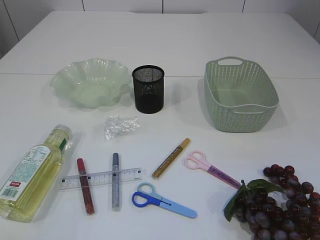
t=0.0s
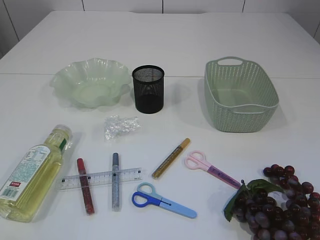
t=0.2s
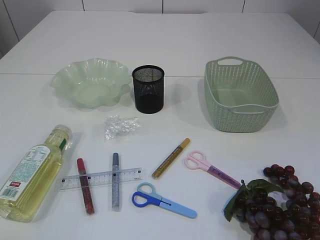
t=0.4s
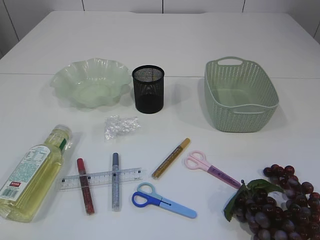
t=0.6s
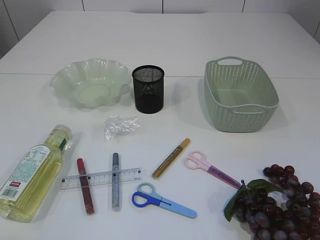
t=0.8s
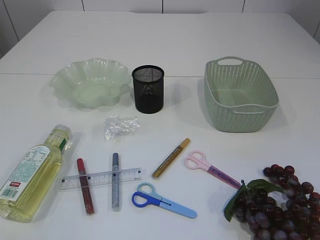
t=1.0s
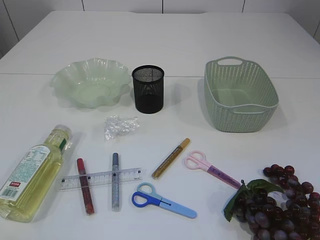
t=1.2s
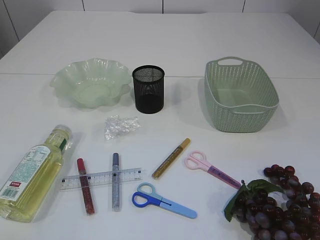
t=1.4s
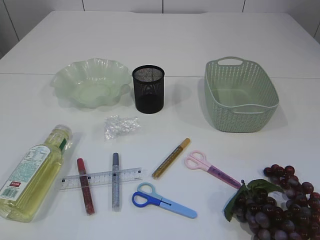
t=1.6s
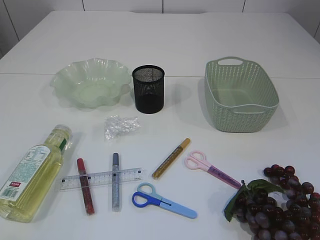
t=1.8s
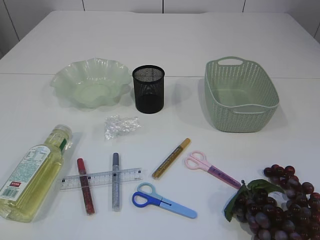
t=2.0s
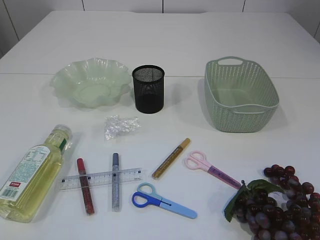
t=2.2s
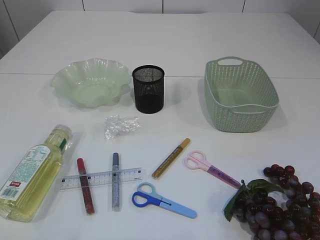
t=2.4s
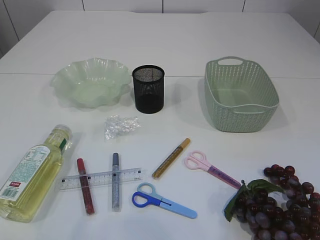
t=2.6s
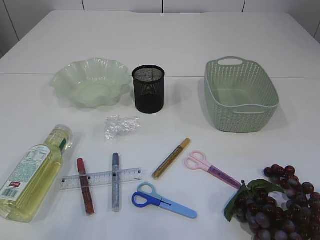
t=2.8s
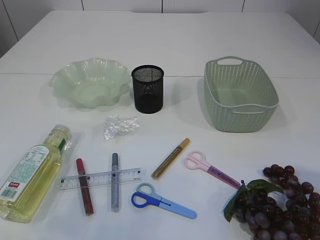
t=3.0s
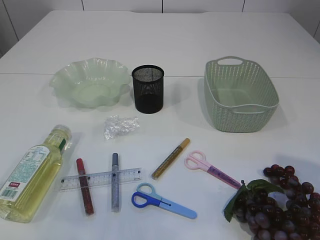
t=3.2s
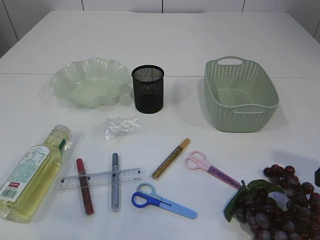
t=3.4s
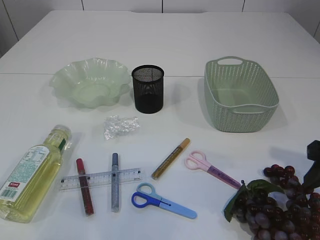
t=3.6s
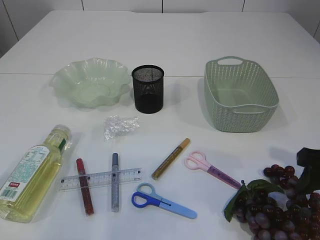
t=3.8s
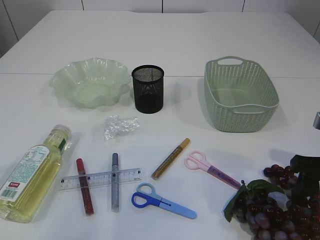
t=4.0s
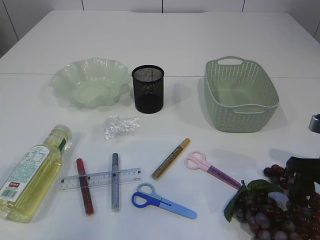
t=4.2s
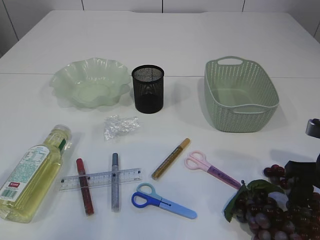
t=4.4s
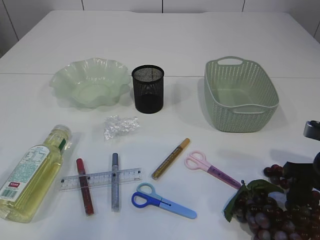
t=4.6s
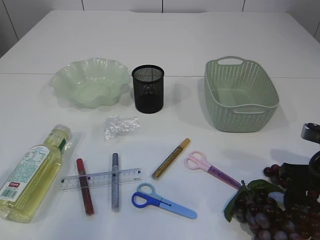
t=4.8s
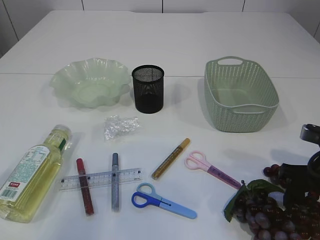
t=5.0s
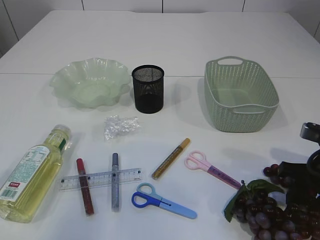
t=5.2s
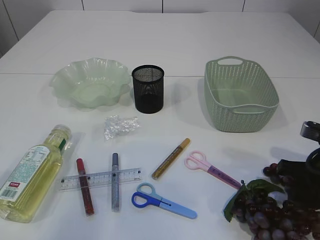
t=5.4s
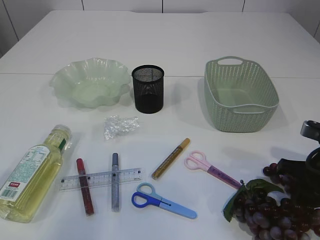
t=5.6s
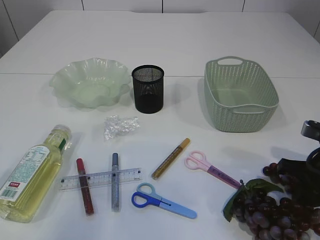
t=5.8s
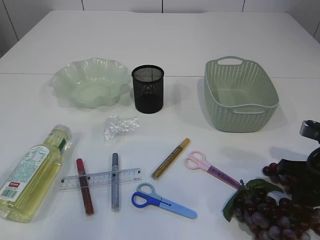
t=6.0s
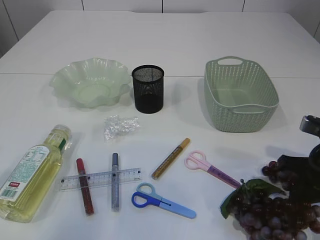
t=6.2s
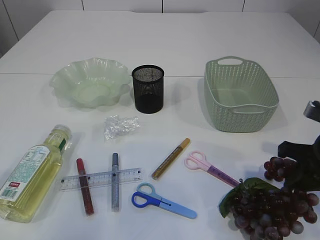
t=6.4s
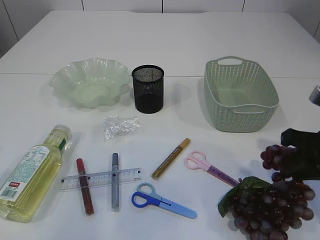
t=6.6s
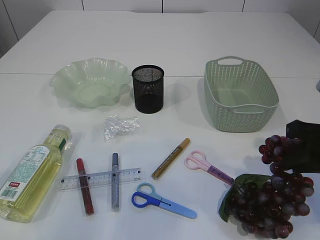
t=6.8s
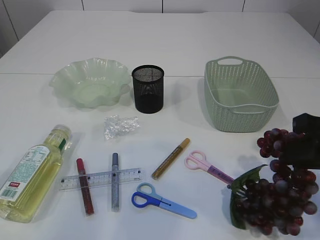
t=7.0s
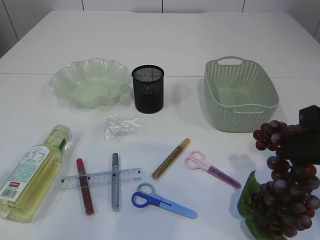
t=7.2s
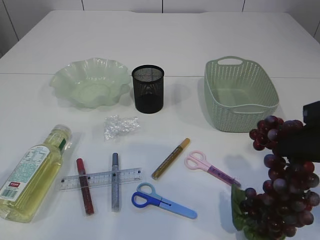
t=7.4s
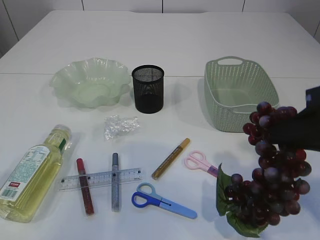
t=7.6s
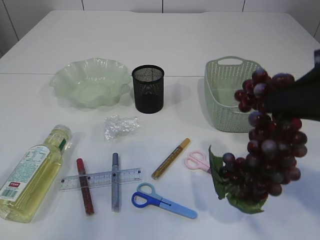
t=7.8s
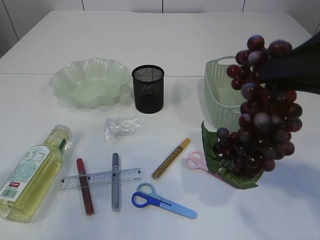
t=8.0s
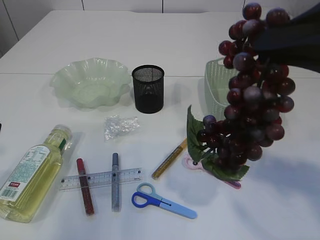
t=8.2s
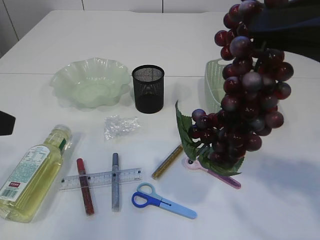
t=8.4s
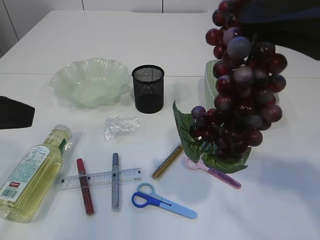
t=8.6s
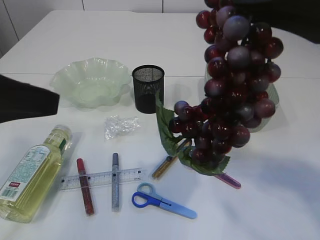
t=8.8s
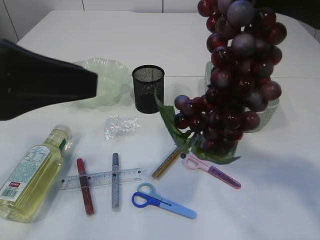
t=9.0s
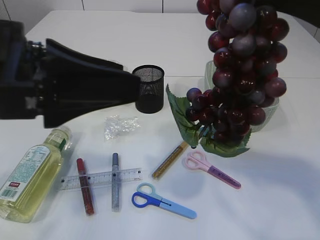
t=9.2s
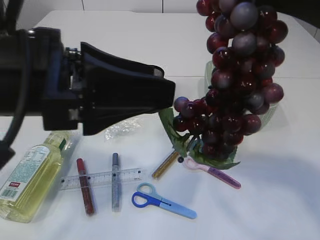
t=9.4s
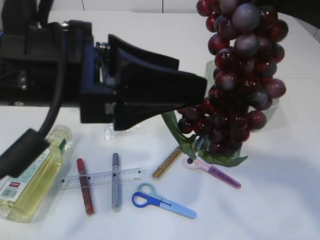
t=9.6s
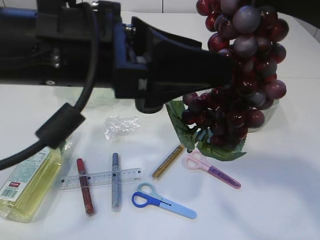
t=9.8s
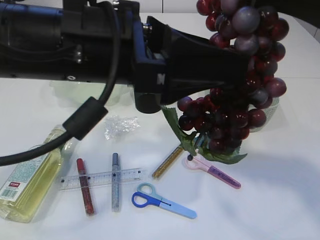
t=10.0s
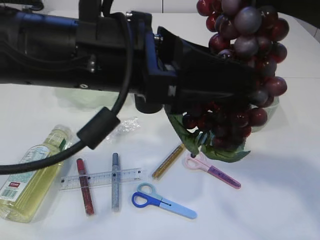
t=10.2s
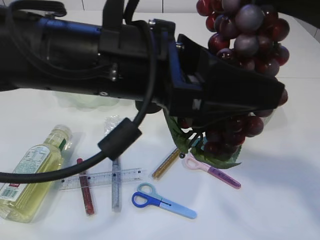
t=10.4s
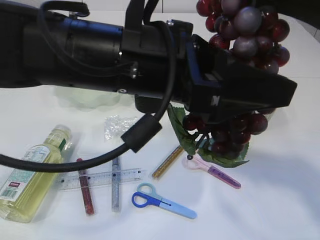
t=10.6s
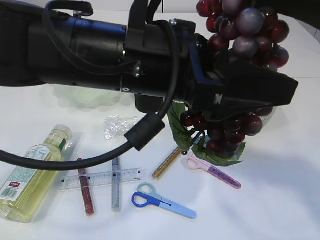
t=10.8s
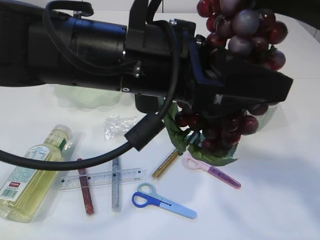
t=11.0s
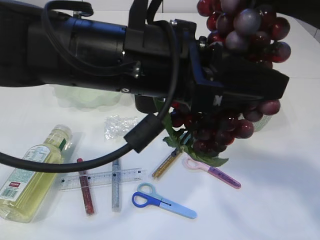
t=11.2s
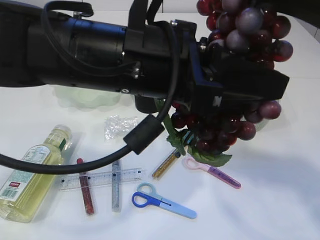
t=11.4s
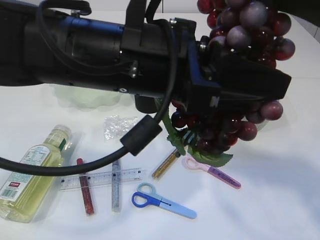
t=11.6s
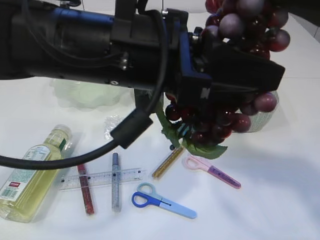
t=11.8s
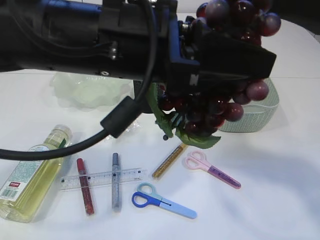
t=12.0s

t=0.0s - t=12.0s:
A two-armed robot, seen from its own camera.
Step, t=0.0s - t=8.0s: Pick up the grapes.
t=1.6s - t=3.0s: Both grippers travel together forward, roughly 10 cm.
t=3.0s - t=4.4s: The right gripper heads downward and forward, covering some 20 cm.
t=4.4s - t=6.0s: The right gripper closes.
t=6.0s - t=7.6s: The right gripper travels upward and backward by roughly 15 cm.
t=7.6s - t=9.0s: The right gripper is displaced upward by approximately 10 cm. Meanwhile the left gripper moves to the right, some 10 cm.
t=9.0s - t=10.4s: The left gripper goes some 15 cm to the right.
t=10.4s - t=12.0s: The right gripper opens its fingers. Meanwhile the left gripper closes up.

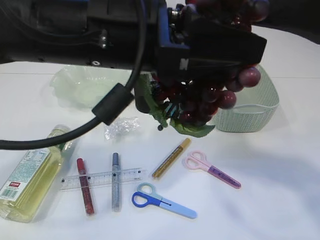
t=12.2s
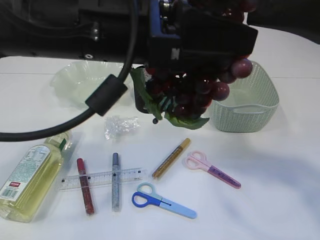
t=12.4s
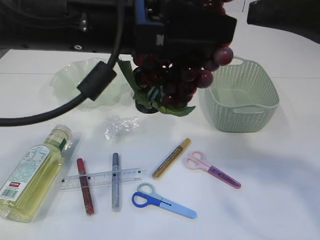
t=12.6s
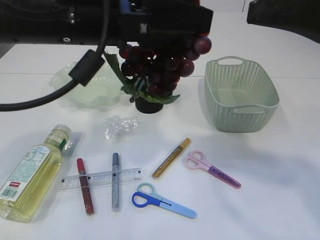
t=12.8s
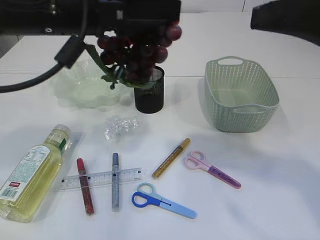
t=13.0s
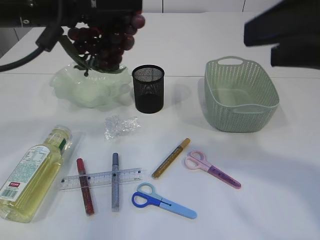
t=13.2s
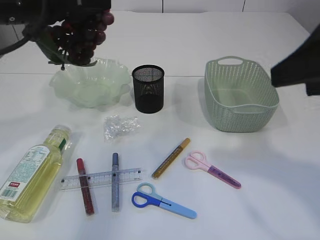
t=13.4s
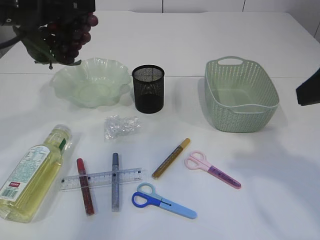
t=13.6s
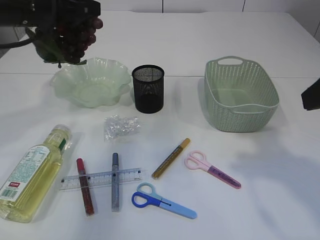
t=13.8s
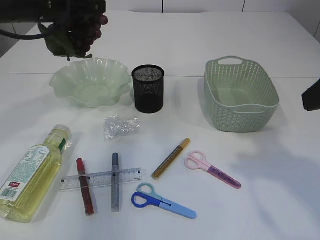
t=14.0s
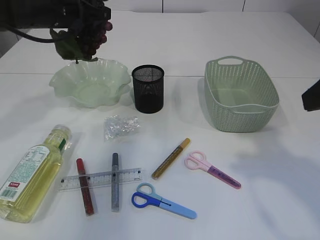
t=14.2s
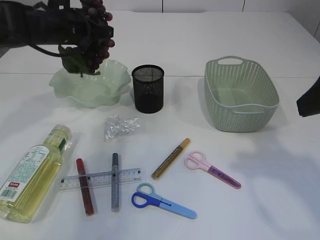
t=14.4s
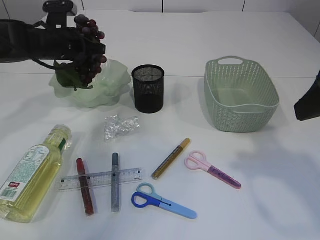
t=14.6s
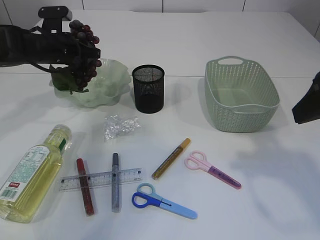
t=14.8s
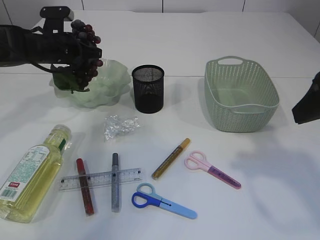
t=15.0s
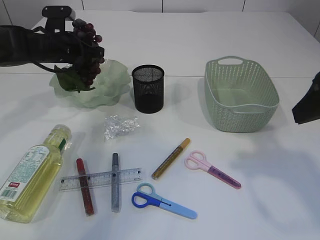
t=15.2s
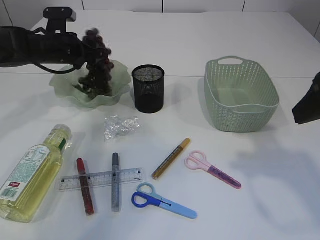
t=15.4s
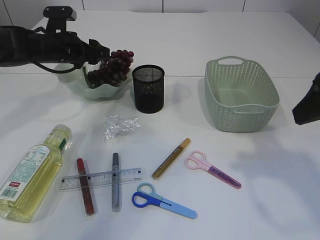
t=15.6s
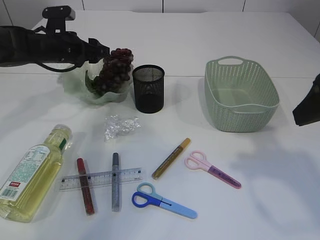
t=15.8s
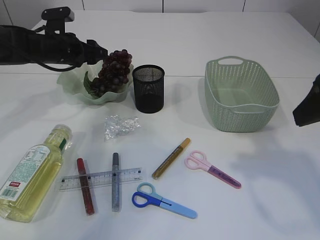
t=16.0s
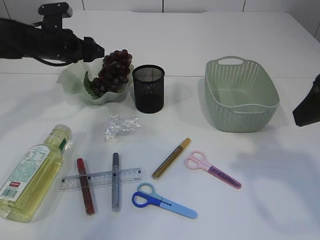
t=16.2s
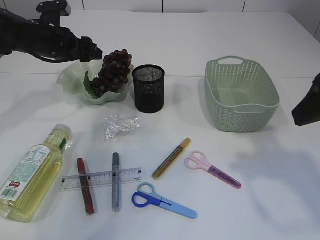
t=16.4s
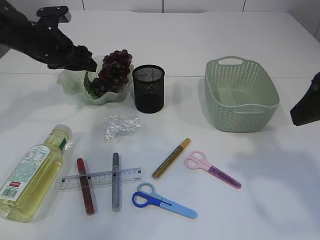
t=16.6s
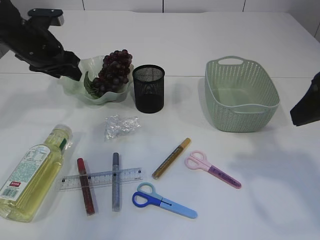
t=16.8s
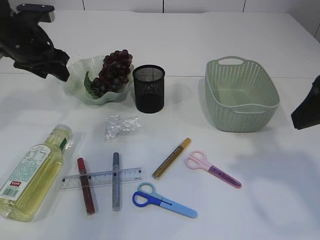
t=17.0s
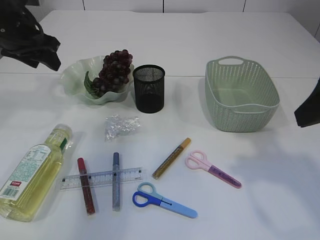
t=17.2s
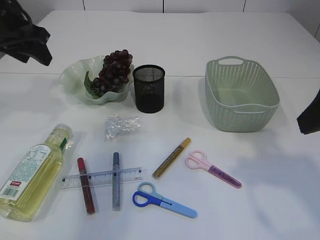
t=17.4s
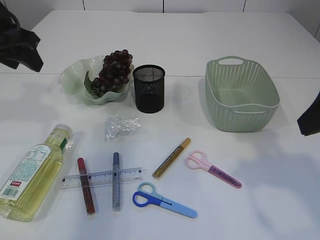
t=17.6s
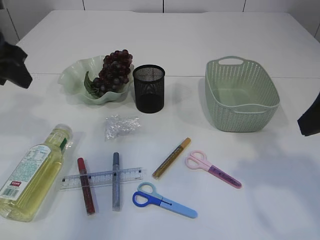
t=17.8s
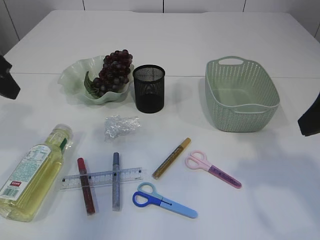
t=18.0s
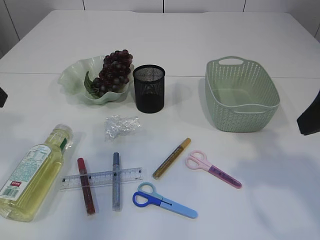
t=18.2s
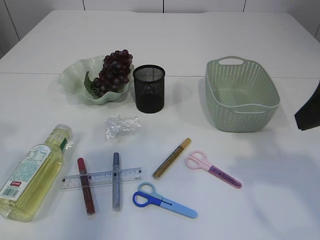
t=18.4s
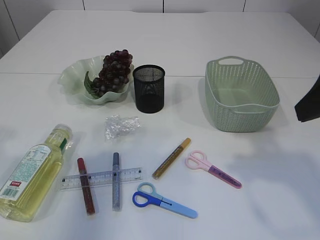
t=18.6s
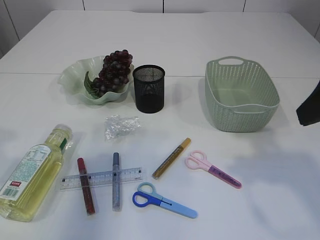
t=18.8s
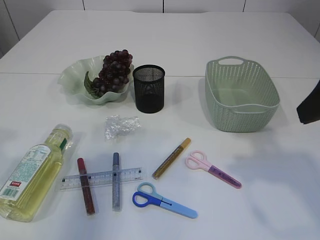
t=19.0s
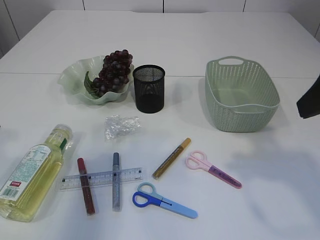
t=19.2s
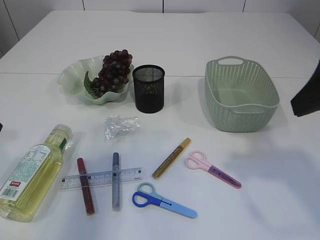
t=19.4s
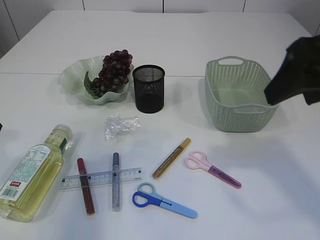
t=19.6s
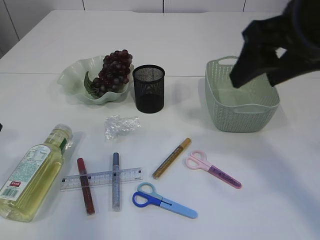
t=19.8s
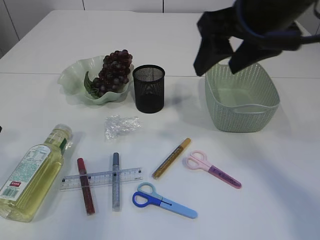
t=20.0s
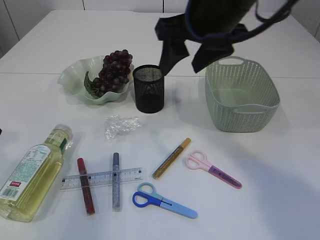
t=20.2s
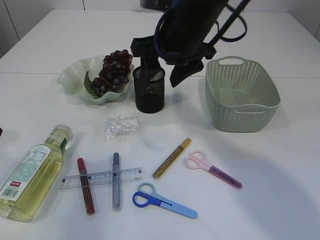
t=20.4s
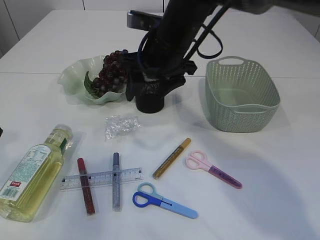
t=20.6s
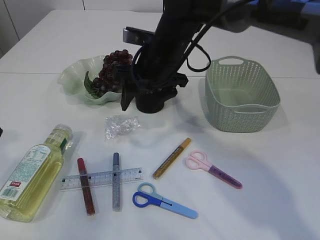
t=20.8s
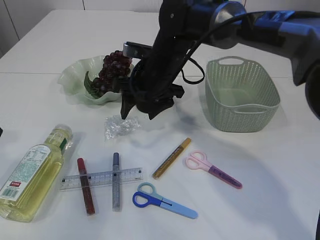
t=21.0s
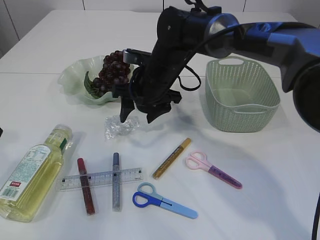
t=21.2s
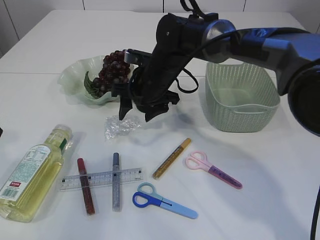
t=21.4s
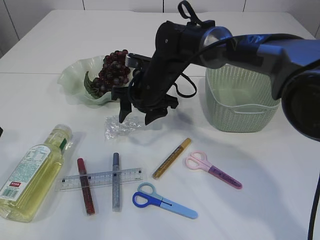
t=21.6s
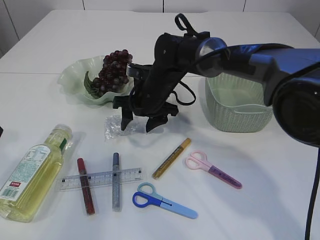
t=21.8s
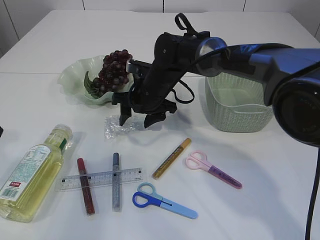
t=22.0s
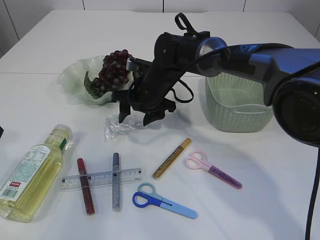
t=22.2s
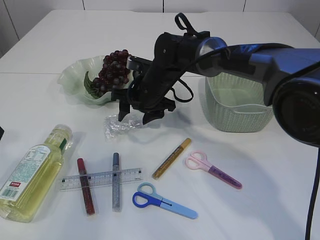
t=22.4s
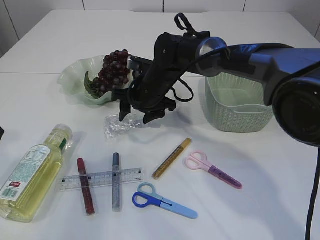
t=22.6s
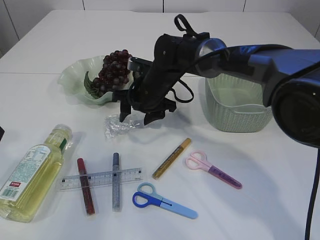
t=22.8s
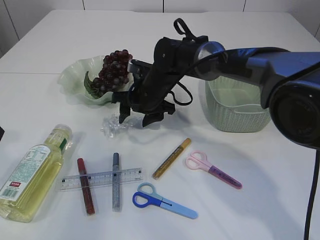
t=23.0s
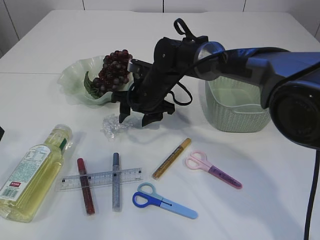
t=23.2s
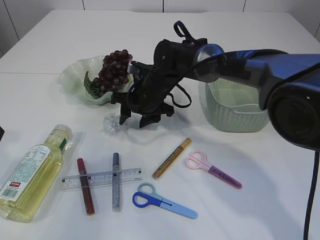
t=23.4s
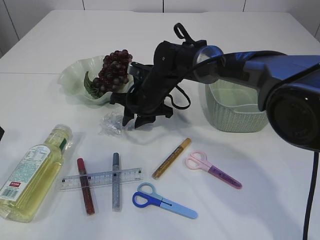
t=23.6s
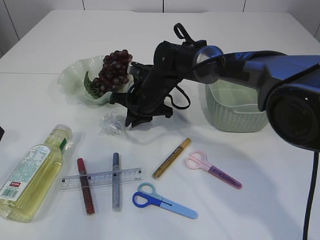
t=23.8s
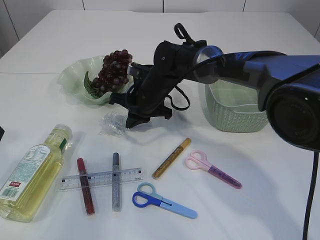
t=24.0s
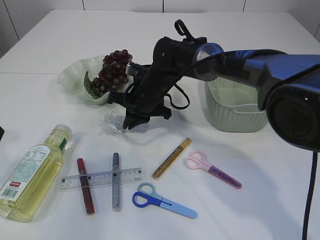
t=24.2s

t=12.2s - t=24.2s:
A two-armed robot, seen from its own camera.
Step, t=13.0s - t=16.6s: Place the grapes in the plate.
t=12.2s - t=13.8s: The left gripper travels to the left and forward by some 20 cm, while the right gripper shifts approximately 10 cm downward and to the right.
t=13.8s - t=15.2s: The left gripper is displaced forward and downward by about 20 cm.
t=15.2s - t=16.6s: The left gripper opens its fingers.
t=16.6s - t=18.2s: The left gripper travels backward and upward by roughly 25 cm.
t=18.2s - t=19.8s: The right gripper shifts about 10 cm to the left and forward.
t=19.8s - t=21.2s: The right gripper shifts some 30 cm forward, downward and to the left.
t=21.2s - t=22.6s: The grippers make only small movements.
t=22.6s - t=24.2s: The right gripper closes.
